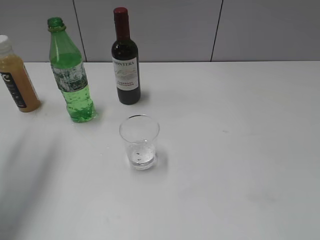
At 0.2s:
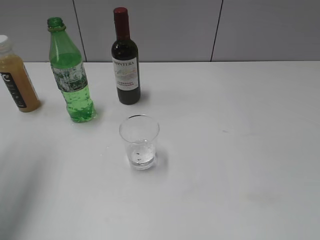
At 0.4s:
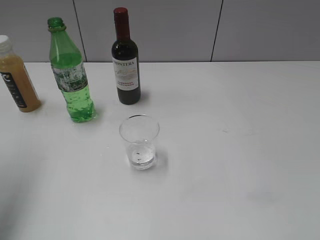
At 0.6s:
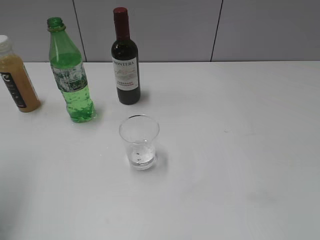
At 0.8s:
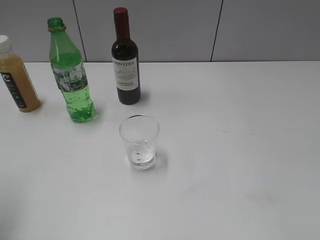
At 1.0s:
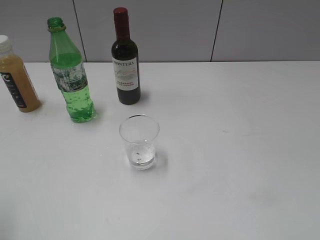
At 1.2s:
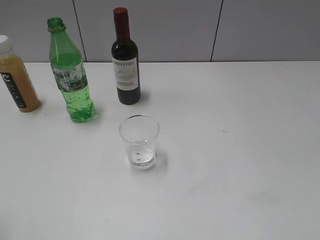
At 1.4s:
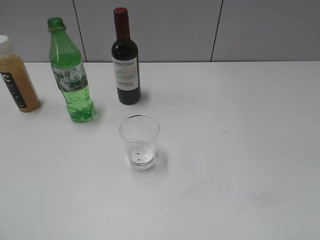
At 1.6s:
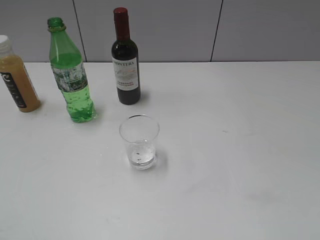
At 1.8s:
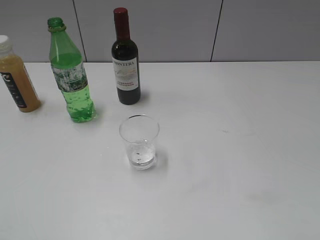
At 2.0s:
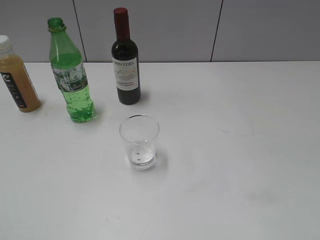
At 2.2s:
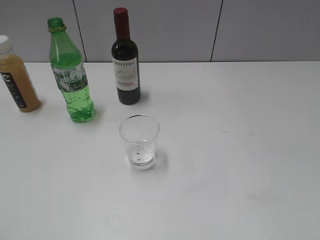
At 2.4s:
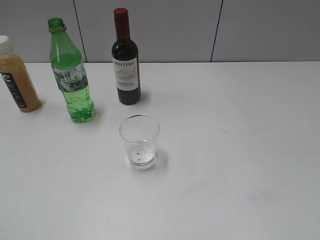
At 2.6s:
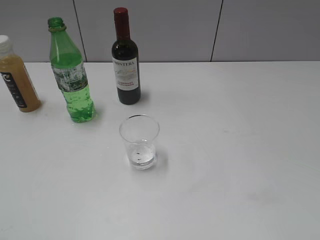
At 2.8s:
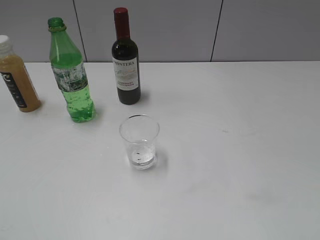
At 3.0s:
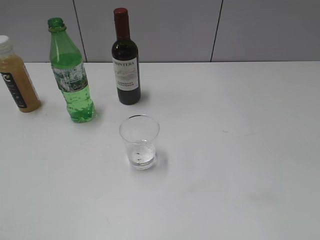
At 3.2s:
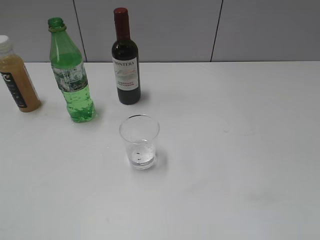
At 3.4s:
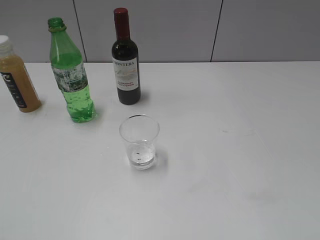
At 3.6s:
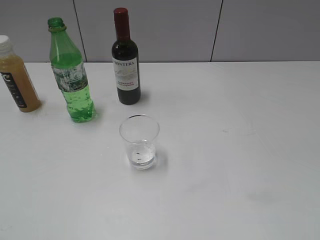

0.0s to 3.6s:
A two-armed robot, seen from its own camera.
0.0s to 1.8s: The left gripper moves backward, roughly 25 cm.

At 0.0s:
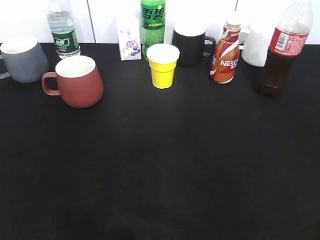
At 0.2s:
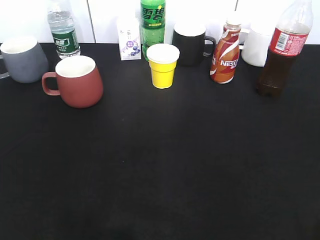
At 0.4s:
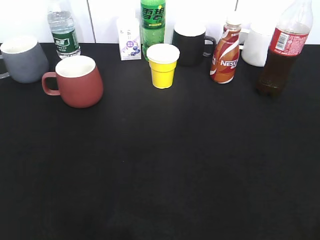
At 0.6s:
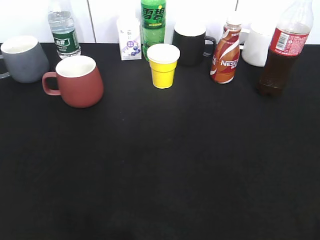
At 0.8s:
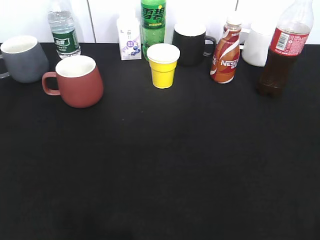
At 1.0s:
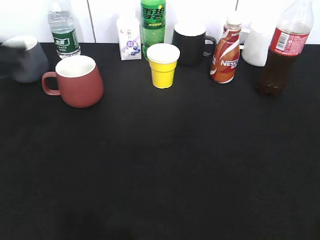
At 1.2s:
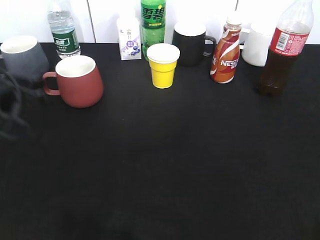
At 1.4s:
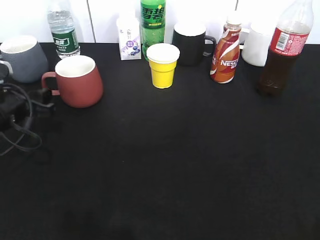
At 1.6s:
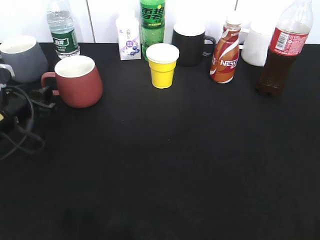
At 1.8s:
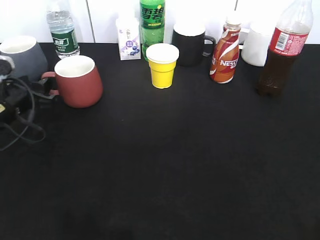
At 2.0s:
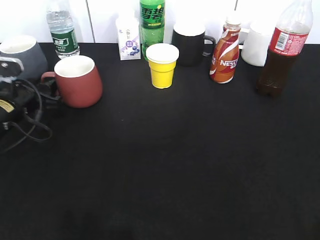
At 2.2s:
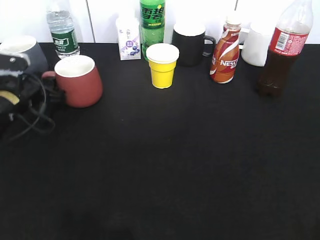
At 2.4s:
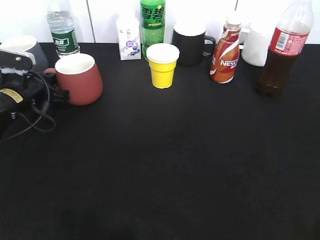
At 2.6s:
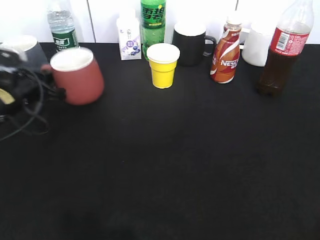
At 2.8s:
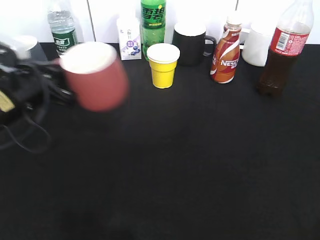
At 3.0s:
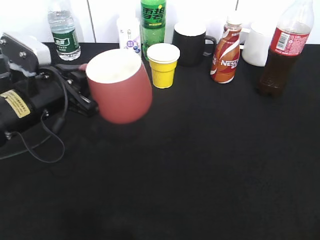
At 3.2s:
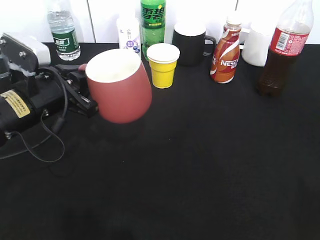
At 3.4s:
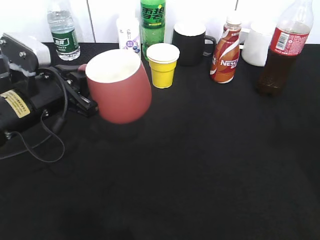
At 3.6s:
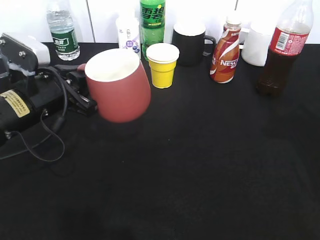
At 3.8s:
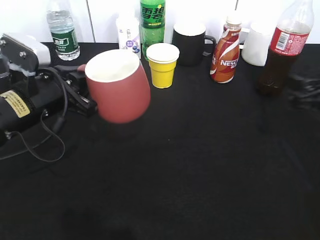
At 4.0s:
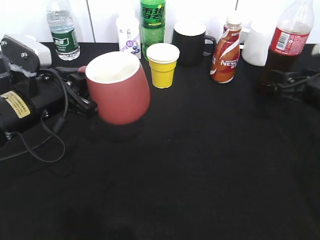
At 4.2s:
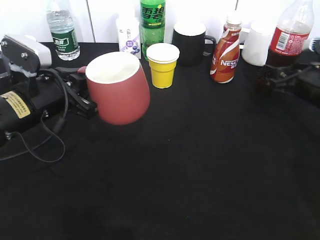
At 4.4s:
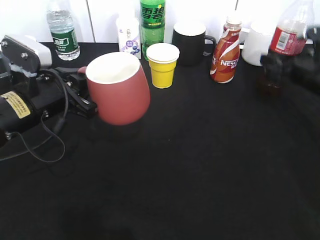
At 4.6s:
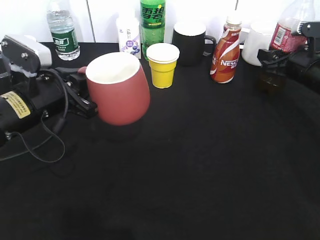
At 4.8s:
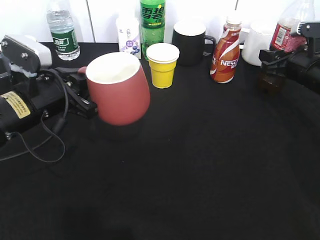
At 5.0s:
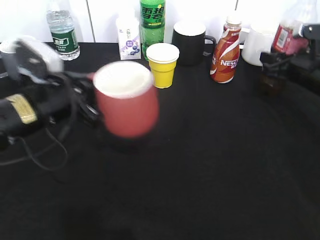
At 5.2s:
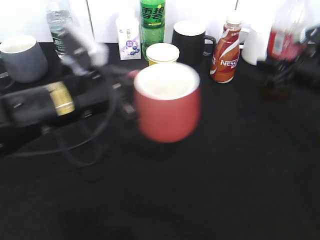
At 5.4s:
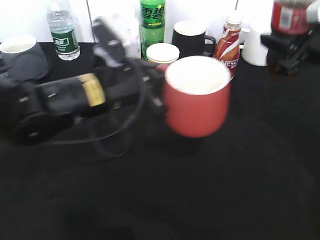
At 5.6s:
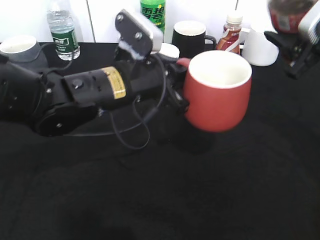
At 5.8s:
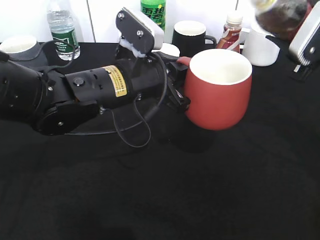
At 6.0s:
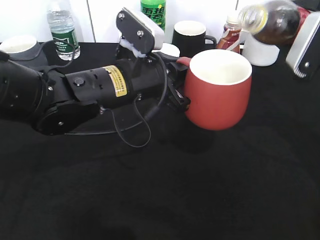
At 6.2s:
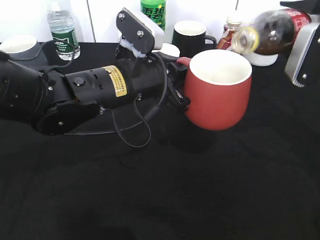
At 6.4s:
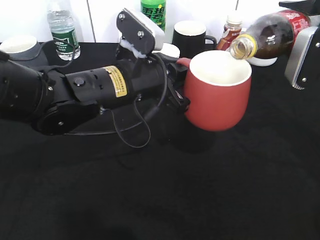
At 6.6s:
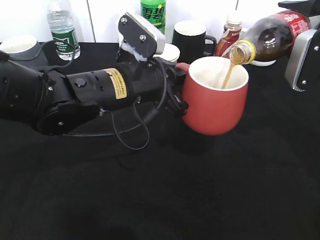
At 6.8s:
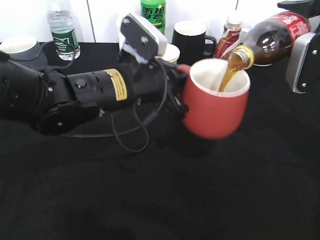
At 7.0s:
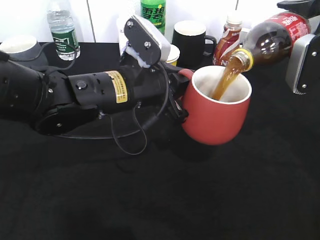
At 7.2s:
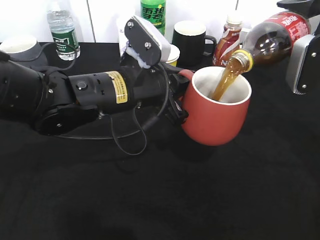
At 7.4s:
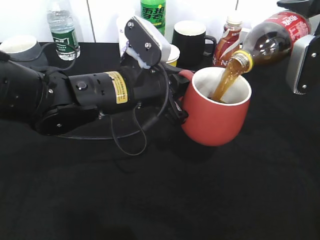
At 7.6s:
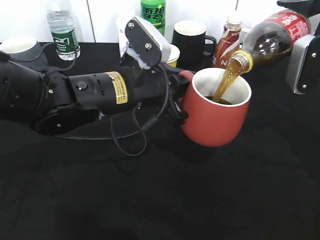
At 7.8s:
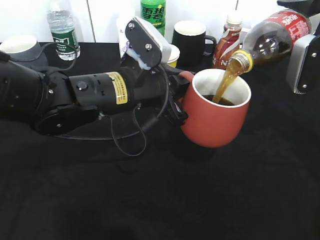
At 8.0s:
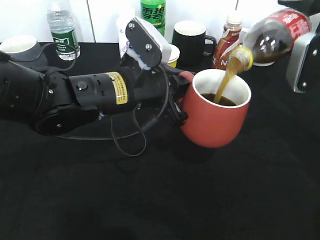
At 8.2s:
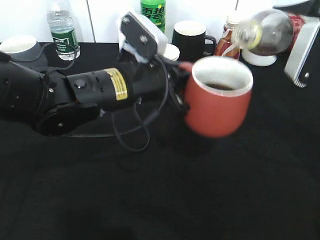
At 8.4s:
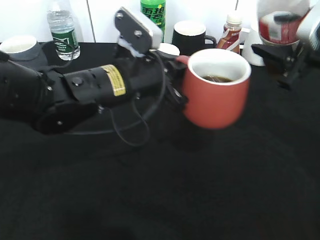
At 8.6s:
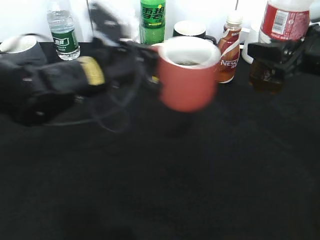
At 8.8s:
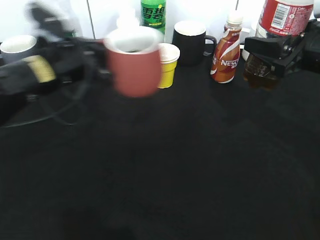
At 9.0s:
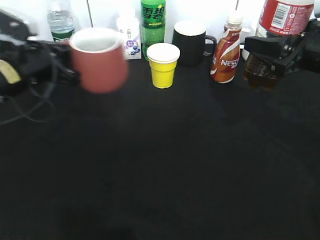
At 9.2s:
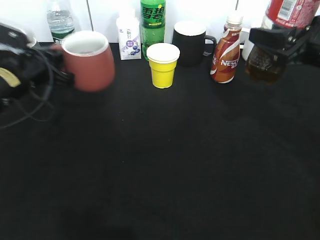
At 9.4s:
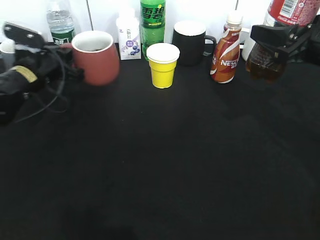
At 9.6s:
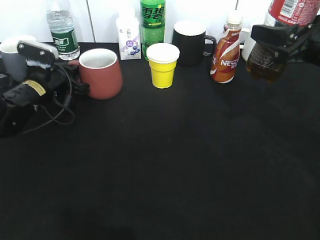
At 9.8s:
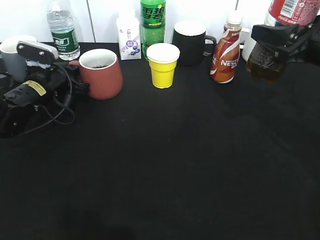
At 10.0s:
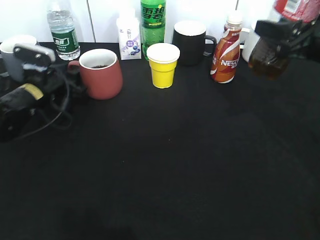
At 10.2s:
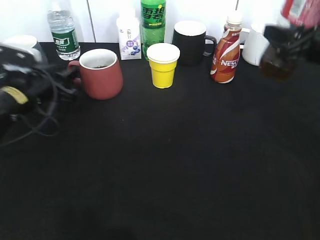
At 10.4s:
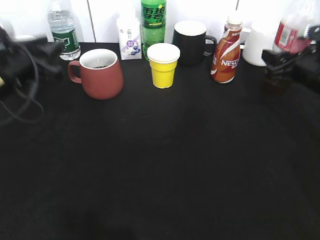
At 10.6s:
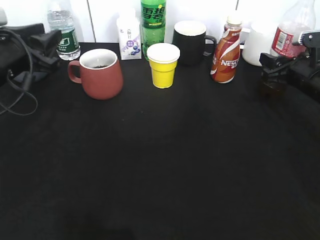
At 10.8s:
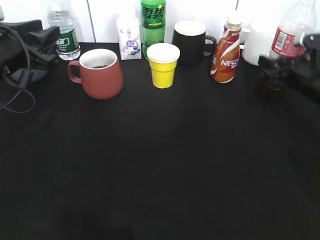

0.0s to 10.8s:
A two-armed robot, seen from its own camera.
Step, 0.0s to 2.4s: Grasp the red cup with left gripper.
Step, 2.6s to 3.2s: Lift the red cup with left gripper.
Step, 3.4s to 4.6s: Grasp the bottle with cola with right gripper.
Step, 4.8s to 8.2s: Pour the cola from bottle to cup with right gripper.
Step, 8.4s to 10.4s: Place the red cup on the table with left gripper.
0.0s to 1.6s: The left gripper heads forward and downward, covering roughly 35 cm.
1.6s to 3.0s: The left gripper heads to the right and upward, covering some 10 cm, travels forward and back again, roughly 5 cm each way, and closes up.
3.0s to 4.6s: The right gripper moves forward, about 40 cm.
4.6s to 6.2s: The left gripper travels to the right by about 15 cm, while the right gripper travels upward and backward by approximately 15 cm, and closes its fingers.
6.2s to 7.8s: The grippers make only small movements.
7.8s to 9.2s: The left gripper shifts some 20 cm to the left.
9.2s to 10.8s: The left gripper heads upward, covering some 5 cm, and opens its fingers. The right gripper moves downward and forward, roughly 10 cm, and opens its fingers.

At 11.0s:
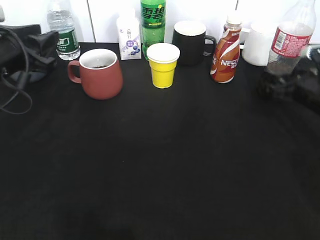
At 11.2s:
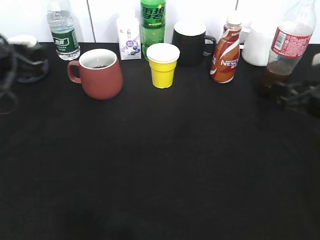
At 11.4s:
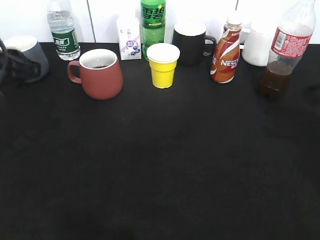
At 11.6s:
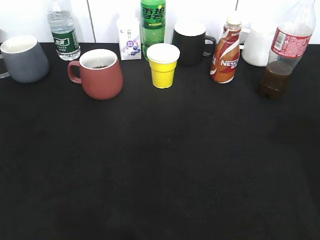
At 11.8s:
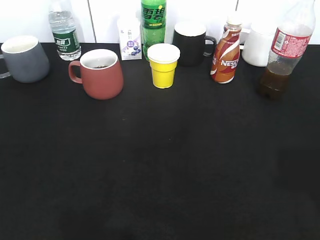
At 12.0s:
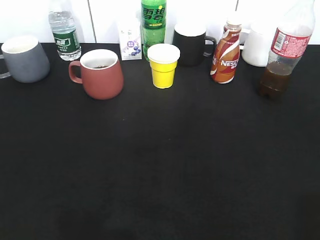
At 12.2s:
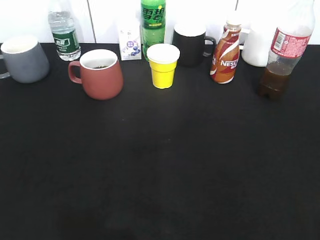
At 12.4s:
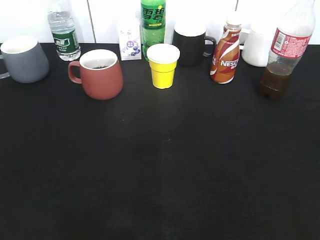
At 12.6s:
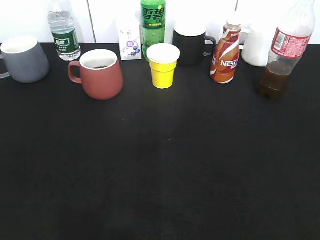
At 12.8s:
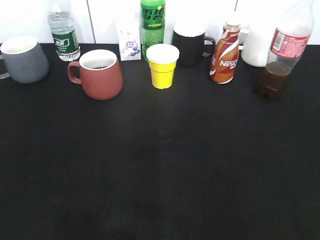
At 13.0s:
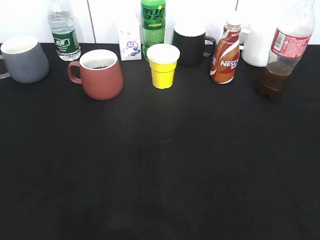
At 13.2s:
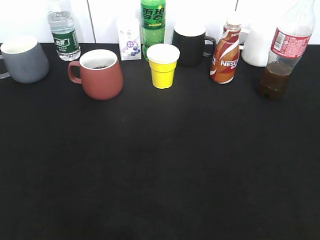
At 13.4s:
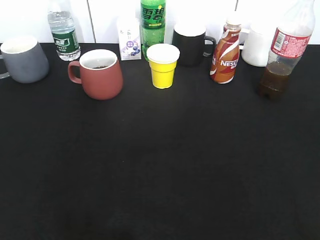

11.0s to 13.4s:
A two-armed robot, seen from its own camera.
11.0s to 12.2s: The left gripper goes some 30 cm backward. The right gripper goes approximately 35 cm backward and upward.

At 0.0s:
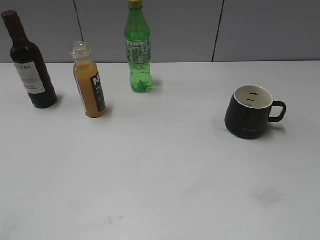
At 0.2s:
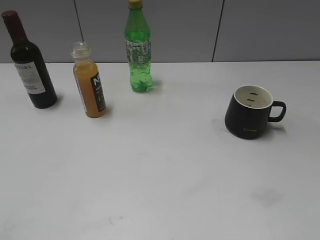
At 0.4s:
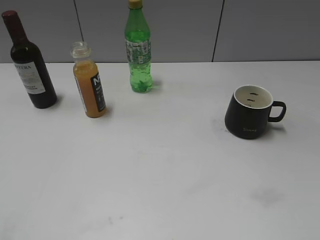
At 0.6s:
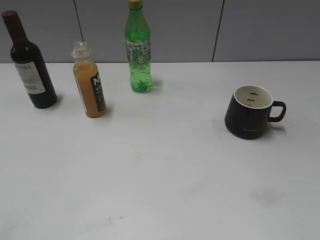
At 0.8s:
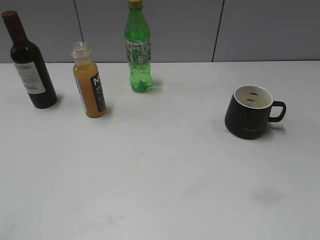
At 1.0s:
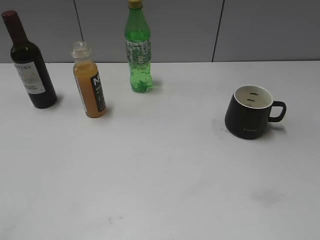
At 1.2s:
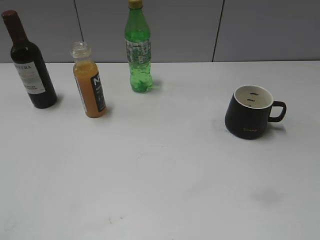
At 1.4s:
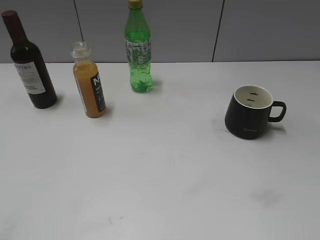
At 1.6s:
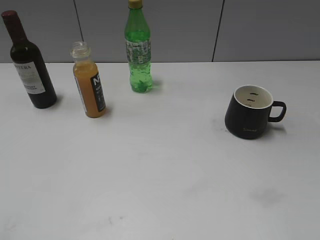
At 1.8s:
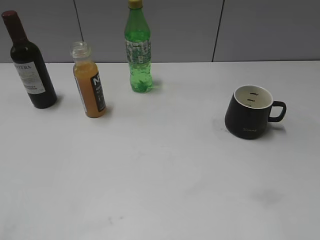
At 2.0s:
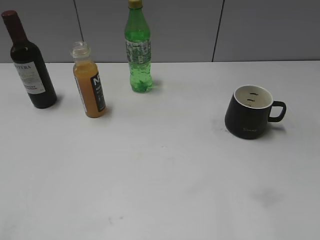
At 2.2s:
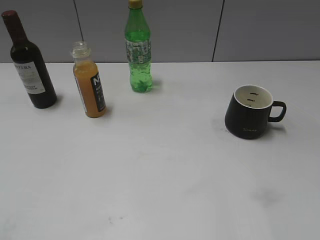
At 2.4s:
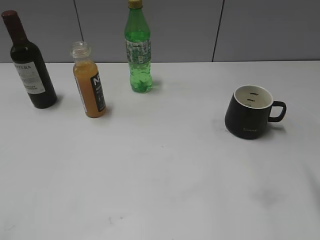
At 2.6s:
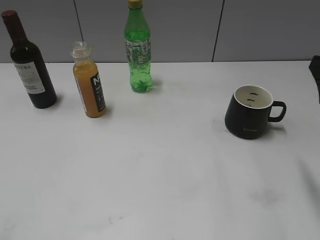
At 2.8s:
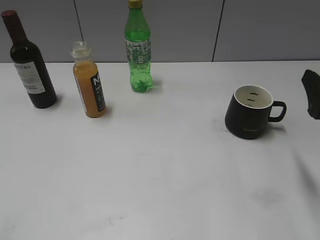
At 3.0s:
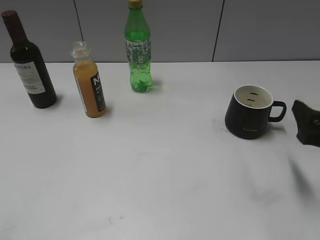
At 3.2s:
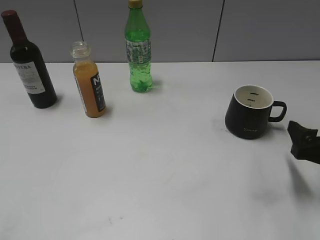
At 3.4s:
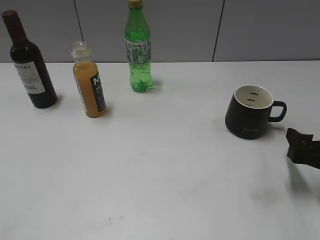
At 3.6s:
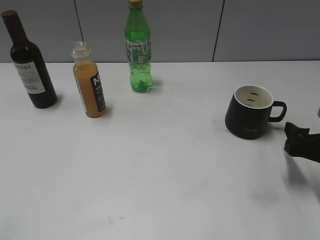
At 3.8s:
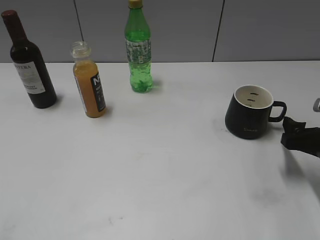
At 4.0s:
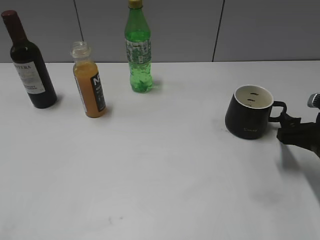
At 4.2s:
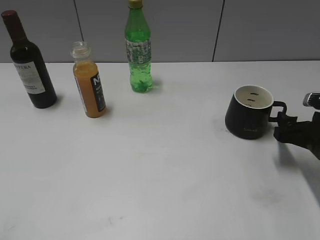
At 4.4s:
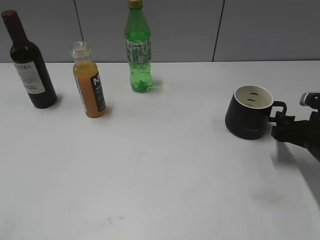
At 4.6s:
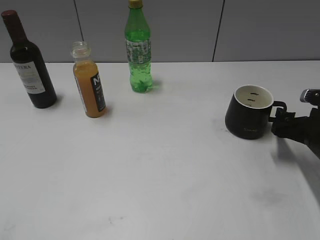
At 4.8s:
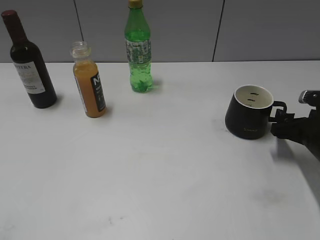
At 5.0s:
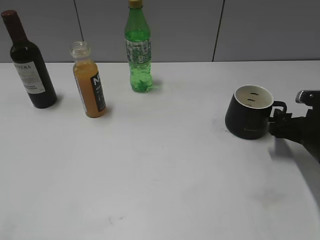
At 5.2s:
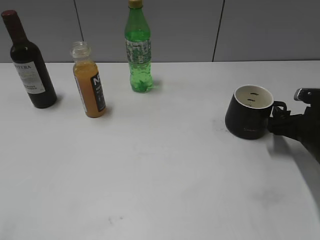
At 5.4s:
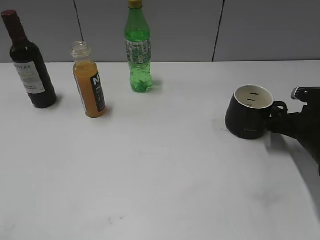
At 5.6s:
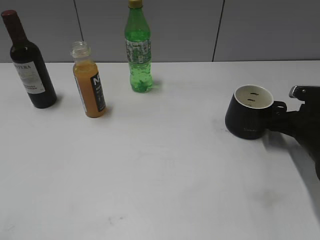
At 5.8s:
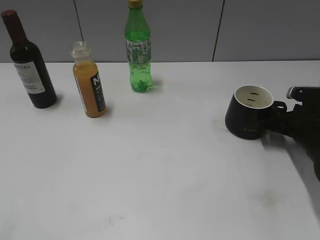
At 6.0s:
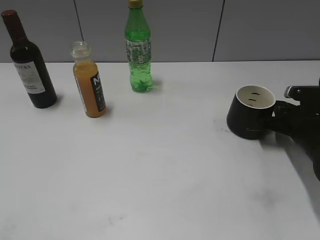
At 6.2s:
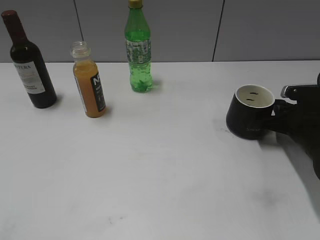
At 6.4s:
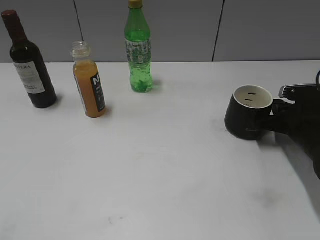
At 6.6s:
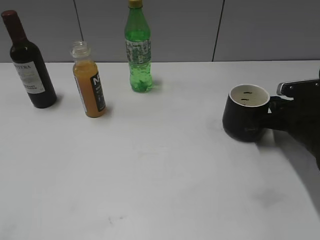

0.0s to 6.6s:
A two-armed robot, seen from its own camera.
Step, 2.6s to 6.4s: Grasp the black cup with right gripper.
1.6s to 3.2s: The right gripper travels forward and downward by about 25 cm.
3.2s to 5.0s: The right gripper goes about 10 cm forward.
5.0s to 6.6s: The right gripper closes.
